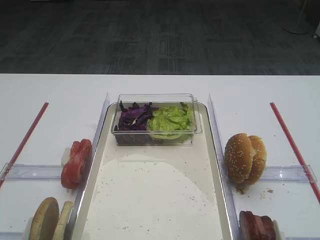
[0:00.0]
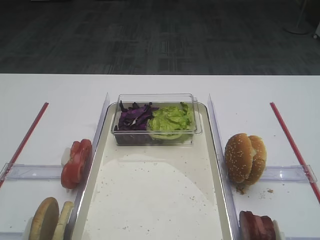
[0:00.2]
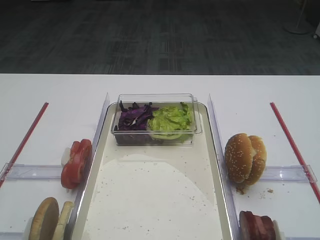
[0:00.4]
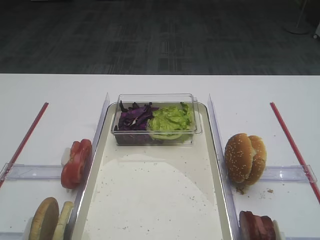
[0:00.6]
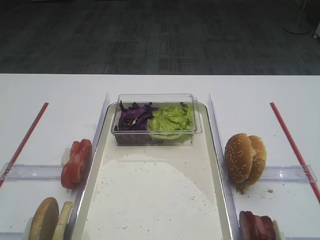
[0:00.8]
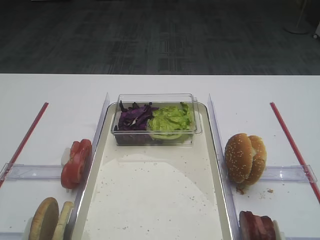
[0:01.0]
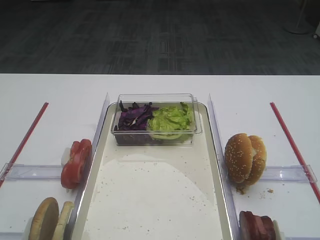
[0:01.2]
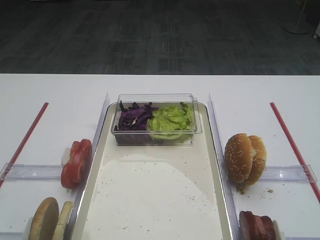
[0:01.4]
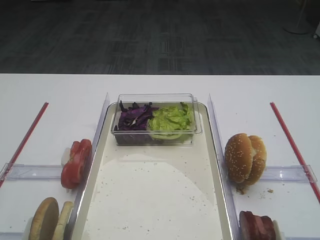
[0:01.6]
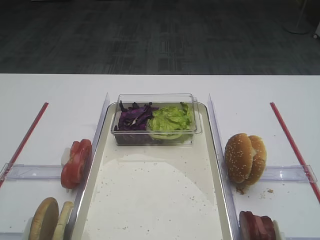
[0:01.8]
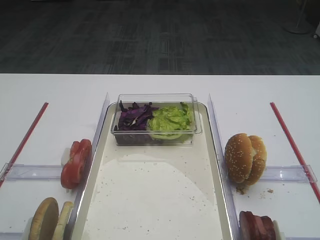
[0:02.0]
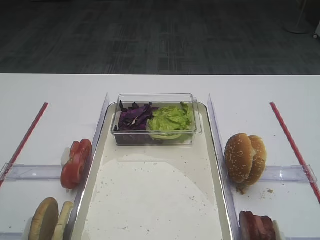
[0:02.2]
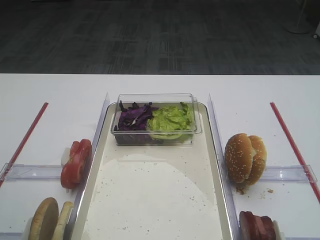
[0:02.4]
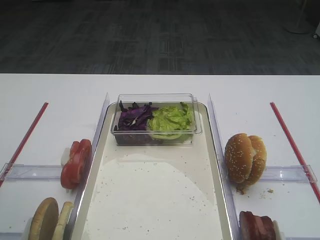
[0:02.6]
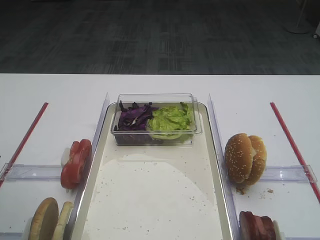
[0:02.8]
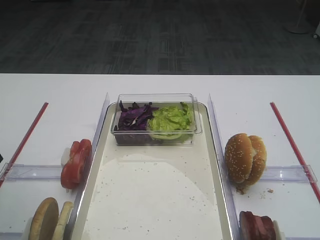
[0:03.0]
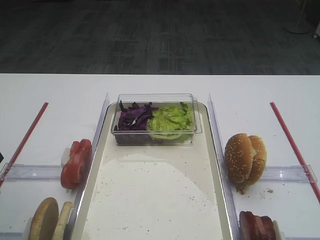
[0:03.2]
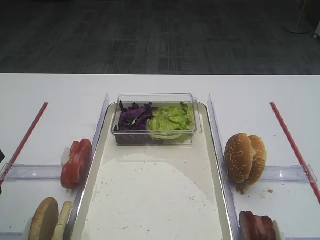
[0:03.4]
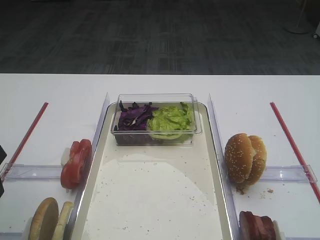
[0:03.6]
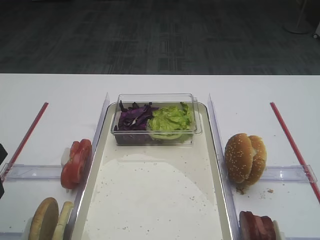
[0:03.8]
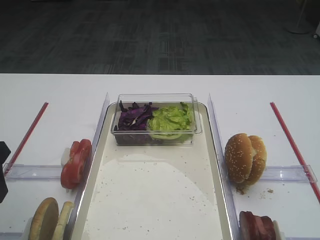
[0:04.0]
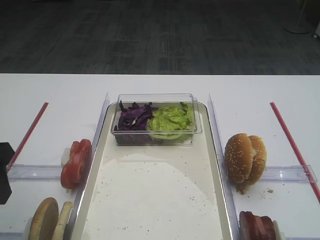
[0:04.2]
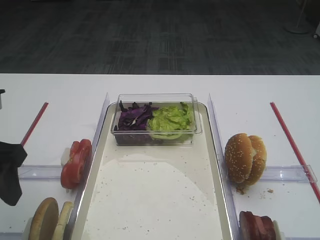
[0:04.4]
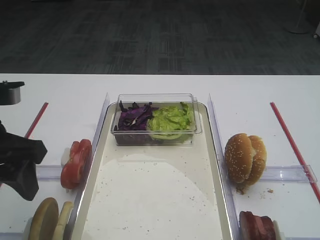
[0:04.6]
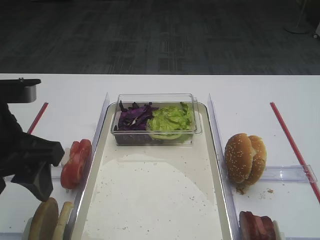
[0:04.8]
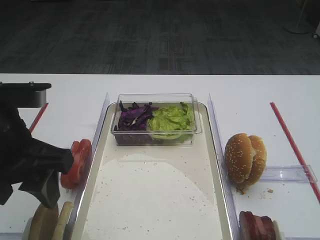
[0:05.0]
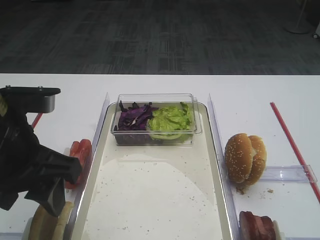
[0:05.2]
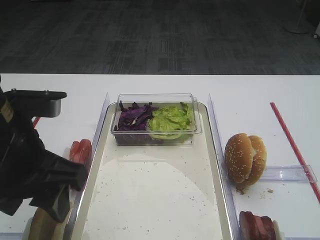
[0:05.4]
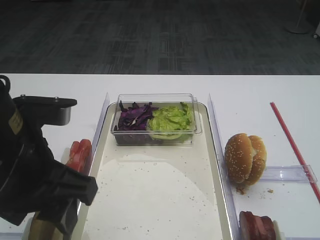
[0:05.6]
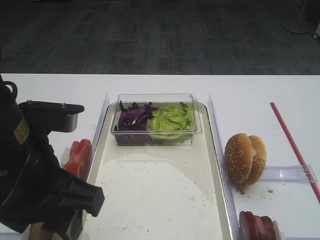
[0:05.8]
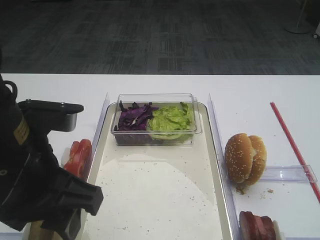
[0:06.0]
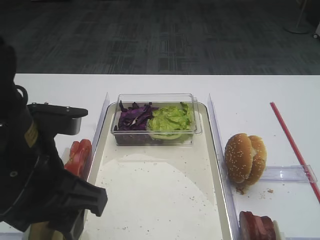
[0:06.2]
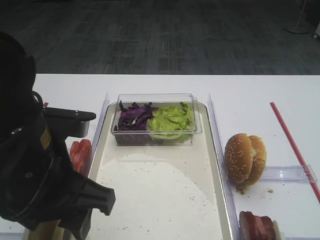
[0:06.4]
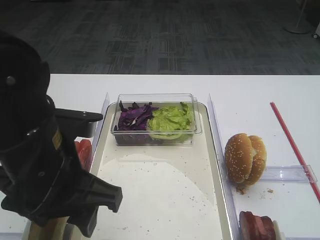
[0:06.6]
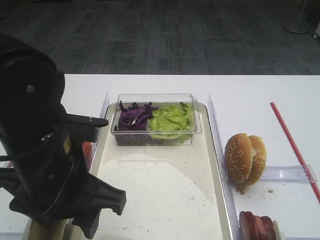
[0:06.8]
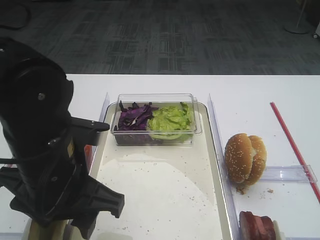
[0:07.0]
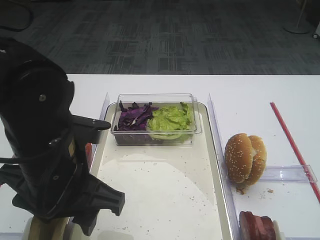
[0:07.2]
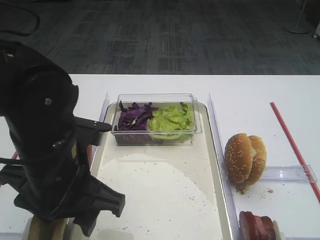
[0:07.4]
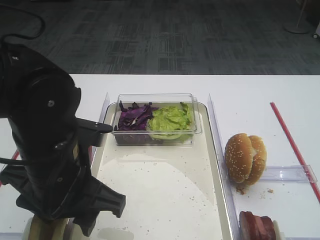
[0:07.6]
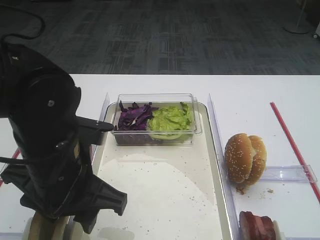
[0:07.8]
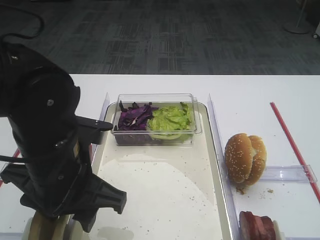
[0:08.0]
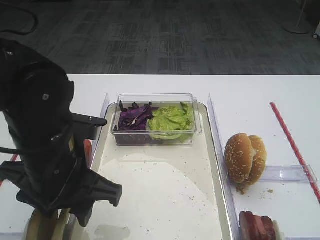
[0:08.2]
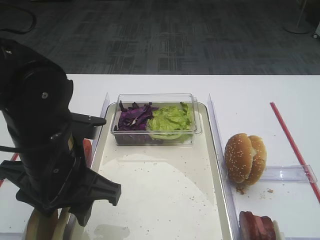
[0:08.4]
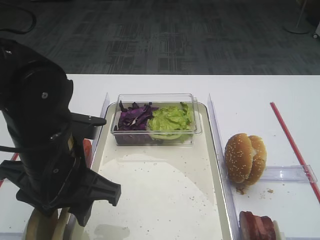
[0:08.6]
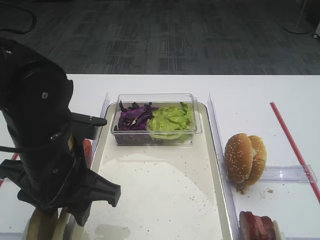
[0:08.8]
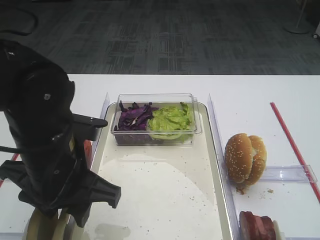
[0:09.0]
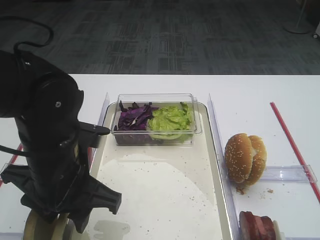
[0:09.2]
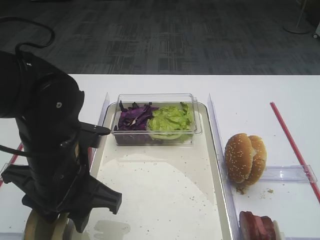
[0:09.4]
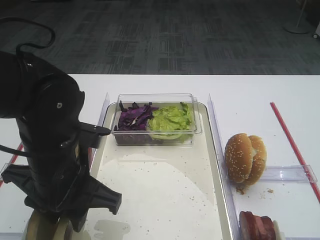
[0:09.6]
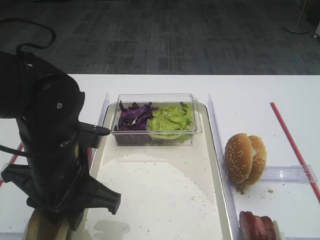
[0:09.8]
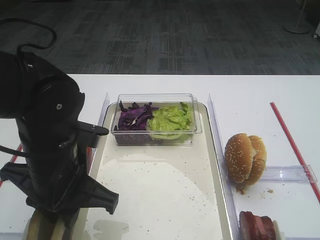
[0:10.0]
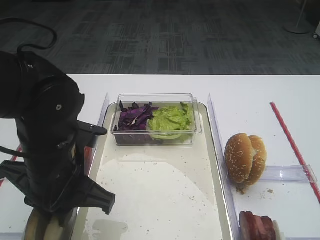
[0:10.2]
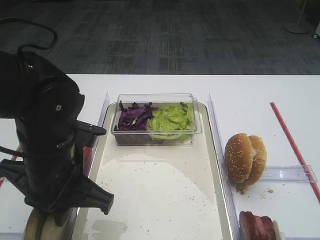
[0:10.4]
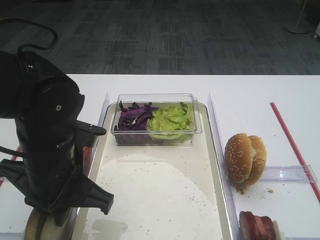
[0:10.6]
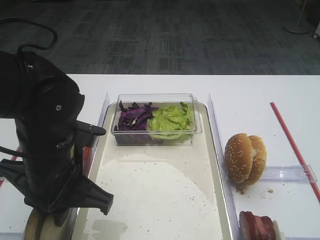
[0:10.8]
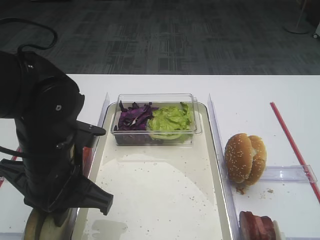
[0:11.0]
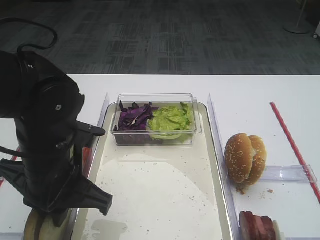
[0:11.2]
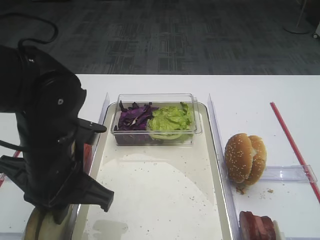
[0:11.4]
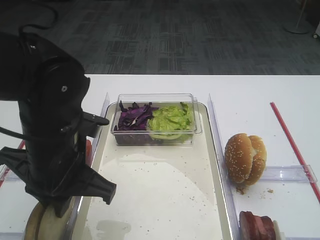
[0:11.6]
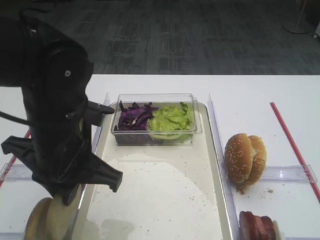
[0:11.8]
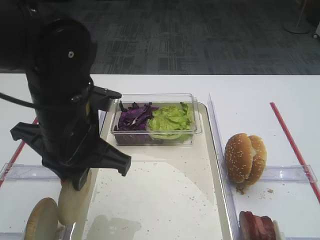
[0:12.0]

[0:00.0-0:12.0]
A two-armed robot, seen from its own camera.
Step, 0:00.0 to 0:11.6: Pick up the bread slice with the left gripper.
0:01.6 to 0:03.0: The left gripper goes roughly 15 cm forward.
0:03.0 to 0:04.4: The grippers make only small movements.
0:04.4 to 0:06.0: The left gripper is displaced to the right by about 10 cm.
0:06.0 to 0:07.6: The left gripper heads downward, covering about 5 cm.
0:07.6 to 0:09.0: Neither gripper changes place.
0:09.0 to 0:10.4: The left gripper closes its fingers.
0:10.4 to 0:12.0: The left gripper changes place by some 5 cm.

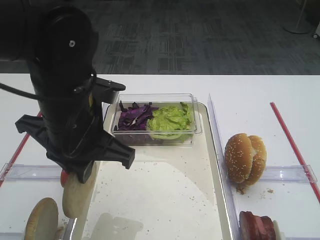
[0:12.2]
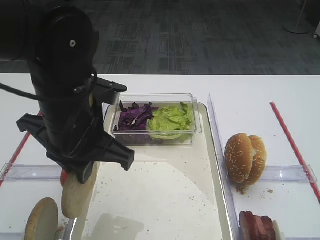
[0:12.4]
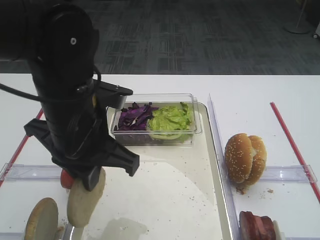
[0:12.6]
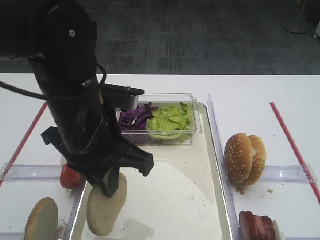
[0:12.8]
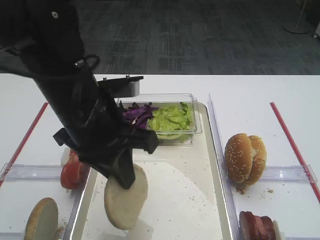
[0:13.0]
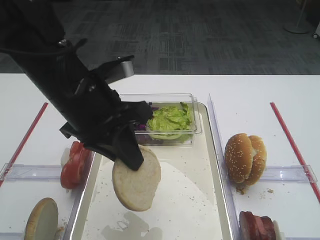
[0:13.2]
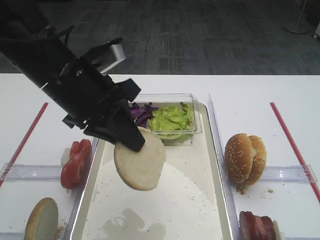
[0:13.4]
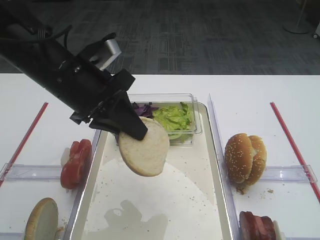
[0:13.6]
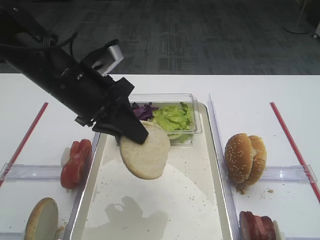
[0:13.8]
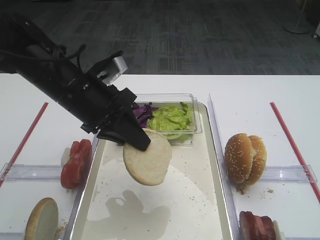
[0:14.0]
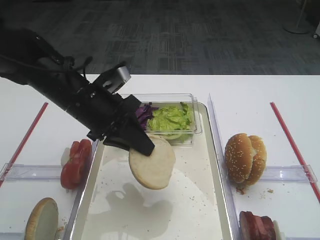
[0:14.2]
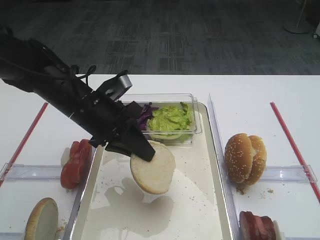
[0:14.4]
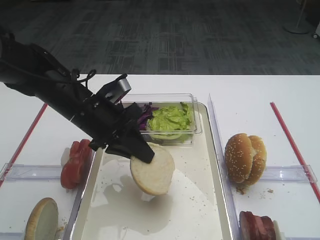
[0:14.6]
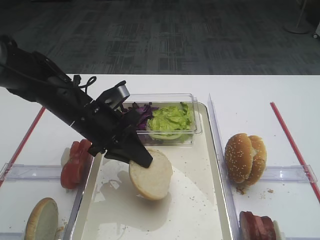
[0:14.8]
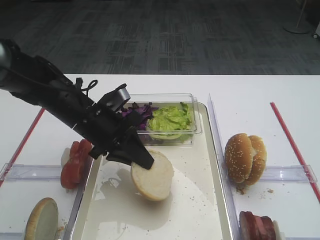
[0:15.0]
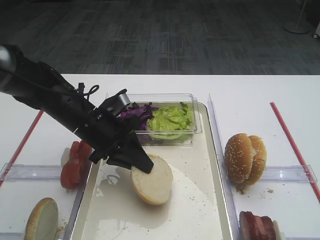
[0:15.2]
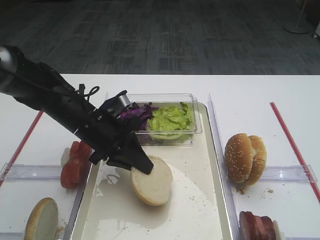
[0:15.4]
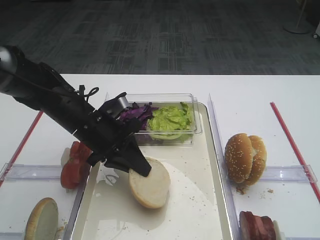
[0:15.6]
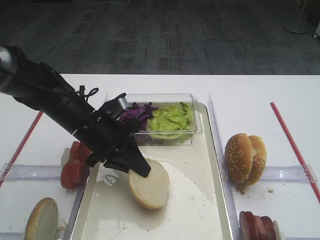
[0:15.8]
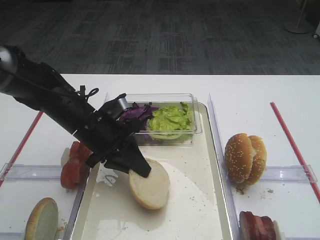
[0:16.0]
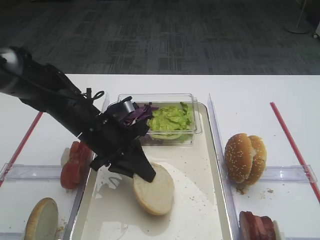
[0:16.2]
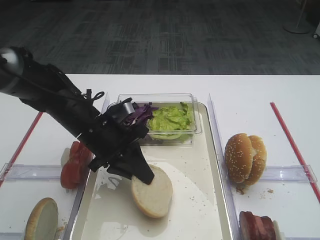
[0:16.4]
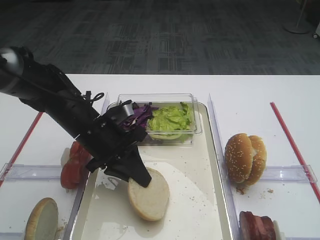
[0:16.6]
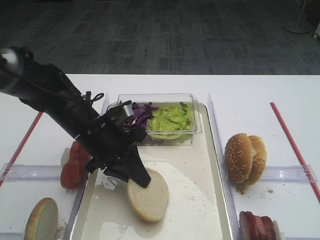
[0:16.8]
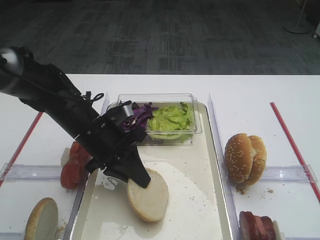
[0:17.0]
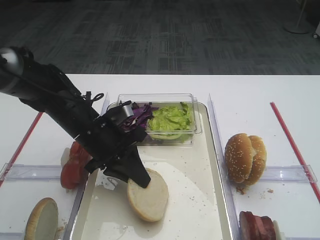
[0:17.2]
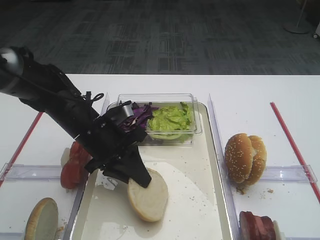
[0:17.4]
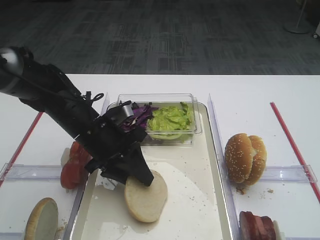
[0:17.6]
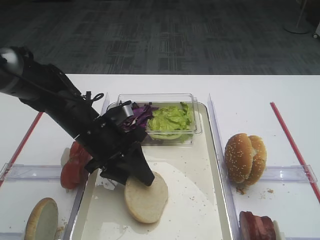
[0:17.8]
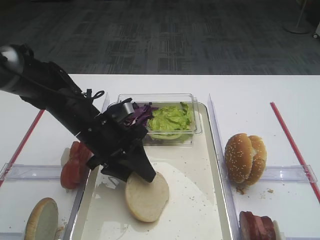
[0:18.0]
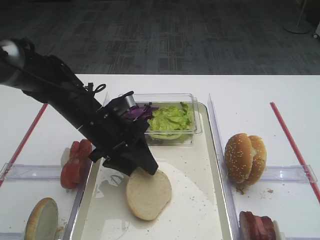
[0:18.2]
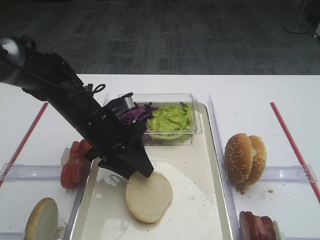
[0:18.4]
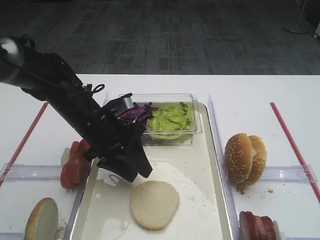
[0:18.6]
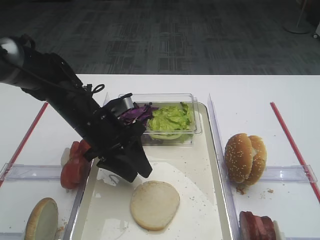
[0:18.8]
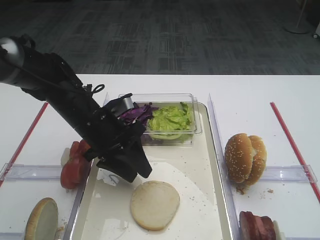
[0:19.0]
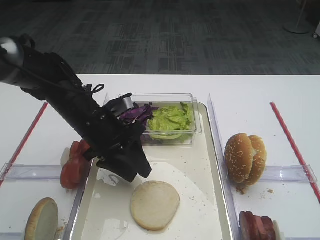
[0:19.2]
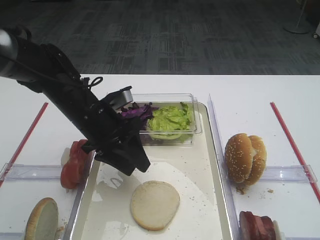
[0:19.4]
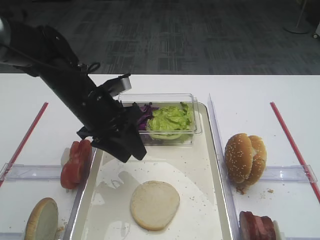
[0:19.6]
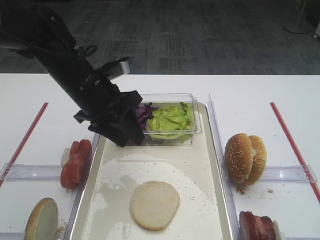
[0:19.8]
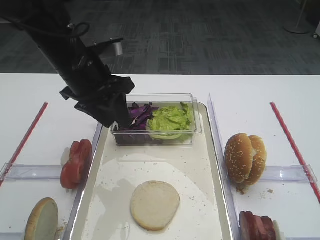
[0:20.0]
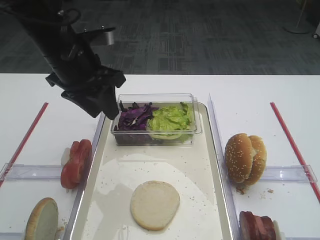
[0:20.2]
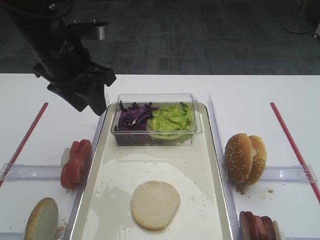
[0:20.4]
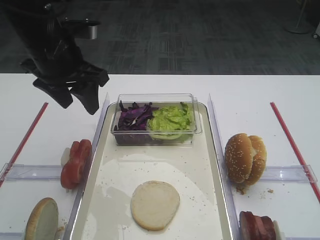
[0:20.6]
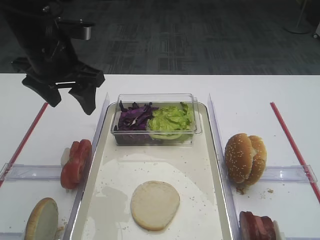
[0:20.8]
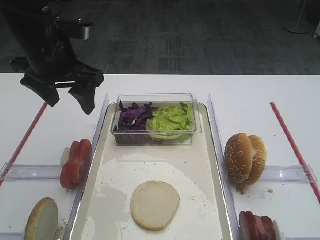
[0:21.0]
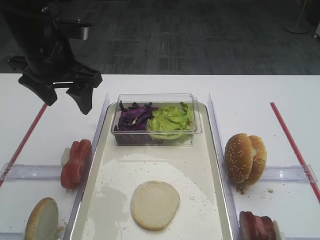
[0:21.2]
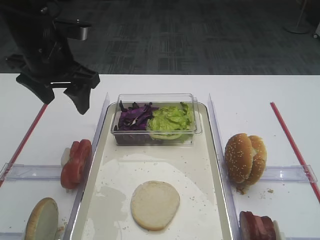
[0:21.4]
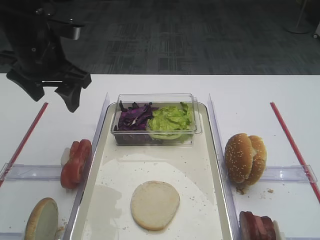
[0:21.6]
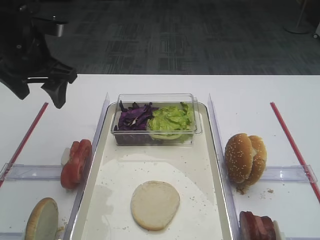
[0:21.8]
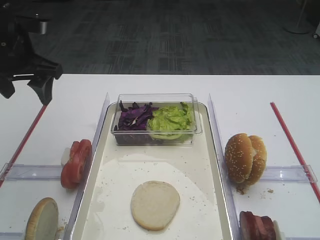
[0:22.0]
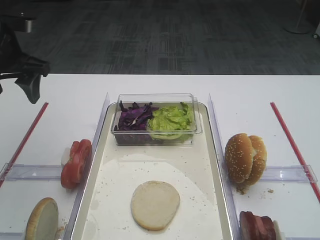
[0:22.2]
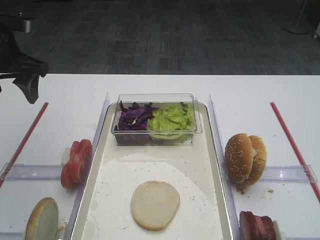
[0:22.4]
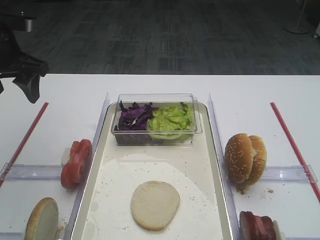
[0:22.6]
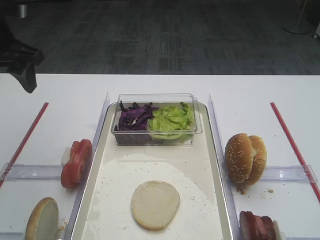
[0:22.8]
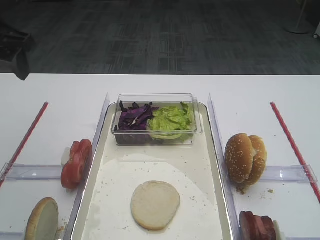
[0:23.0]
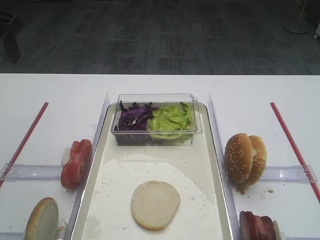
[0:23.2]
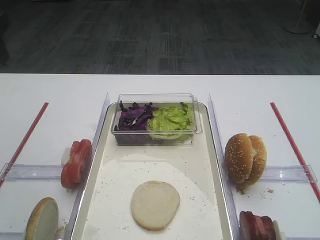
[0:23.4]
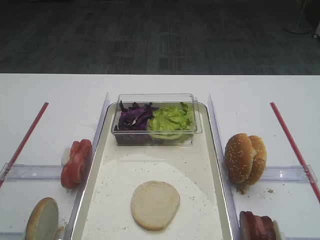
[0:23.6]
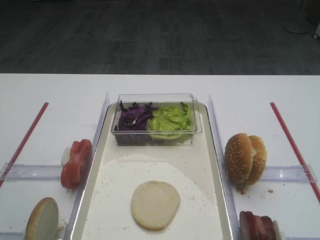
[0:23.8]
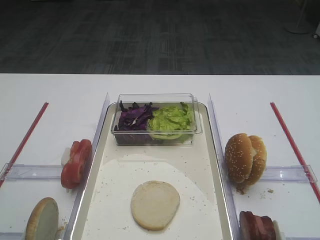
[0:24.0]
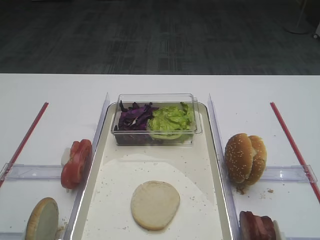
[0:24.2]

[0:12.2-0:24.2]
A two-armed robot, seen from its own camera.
Step, 0:12.2 to 0:19.0: Place the bread slice on the tray with the left gripper.
0:12.2 to 0:13.8: The left gripper travels forward by about 5 cm.
0:13.8 to 0:15.2: The left gripper heads downward, covering about 10 cm.
0:15.2 to 0:16.6: The grippers stay close to where they were, moving slightly.
0:16.6 to 0:18.2: The left gripper opens up.
0:18.2 to 0:19.8: The left gripper goes roughly 5 cm upward.
0:19.8 to 0:21.2: The left gripper heads upward and to the left, covering roughly 10 cm, and opens up.
0:21.2 to 0:22.6: The left gripper travels to the left by some 10 cm.
0:22.6 to 0:24.2: The left gripper shifts approximately 25 cm backward.
